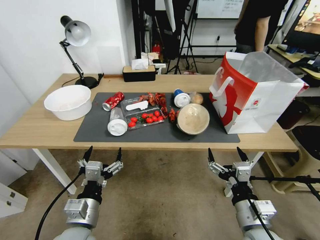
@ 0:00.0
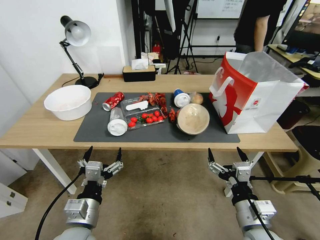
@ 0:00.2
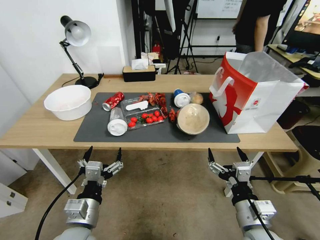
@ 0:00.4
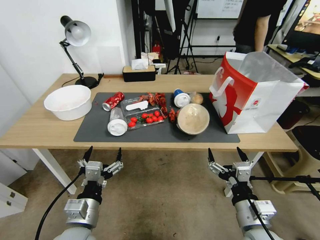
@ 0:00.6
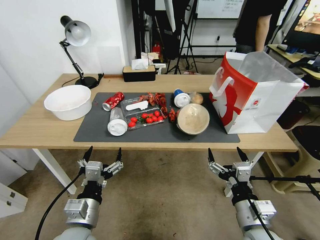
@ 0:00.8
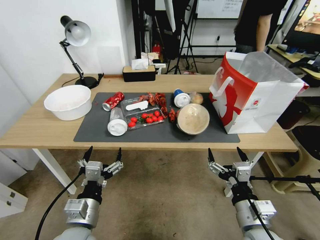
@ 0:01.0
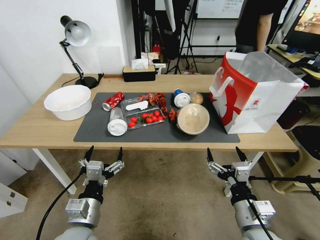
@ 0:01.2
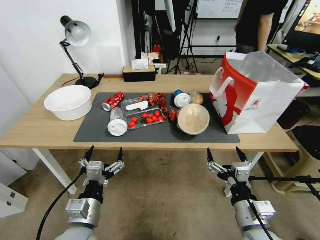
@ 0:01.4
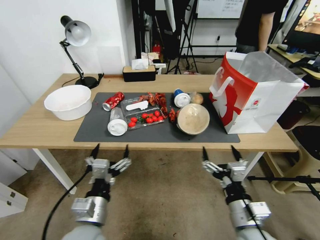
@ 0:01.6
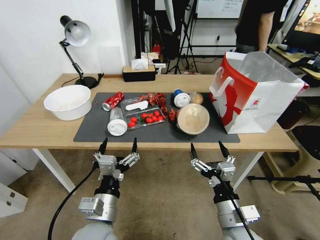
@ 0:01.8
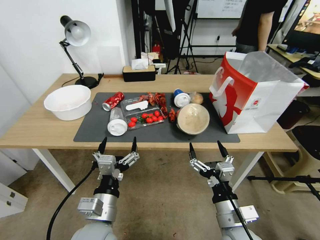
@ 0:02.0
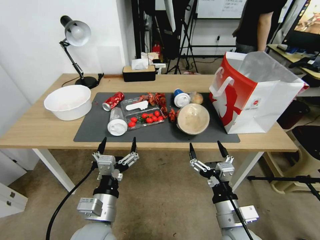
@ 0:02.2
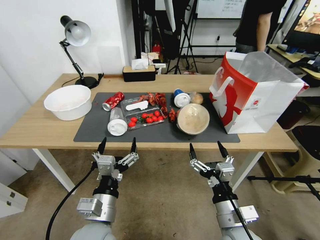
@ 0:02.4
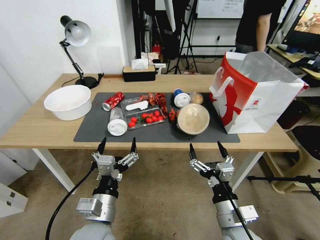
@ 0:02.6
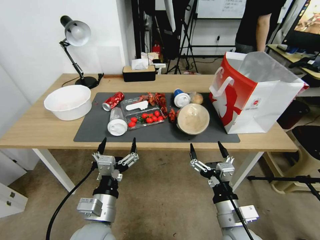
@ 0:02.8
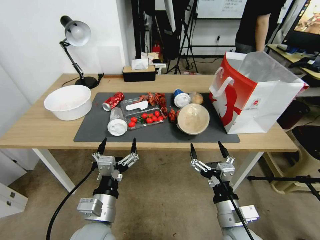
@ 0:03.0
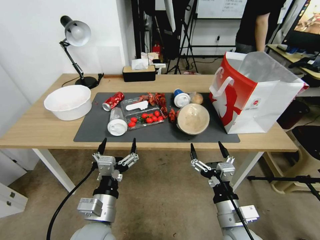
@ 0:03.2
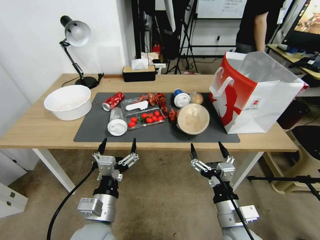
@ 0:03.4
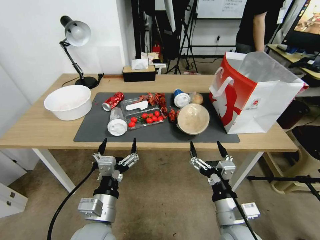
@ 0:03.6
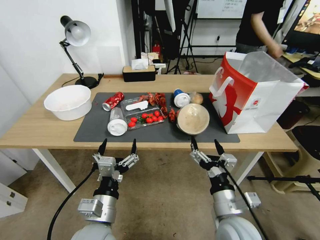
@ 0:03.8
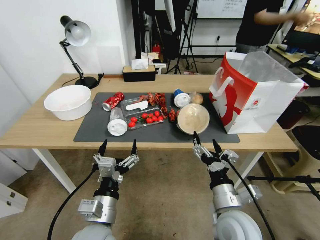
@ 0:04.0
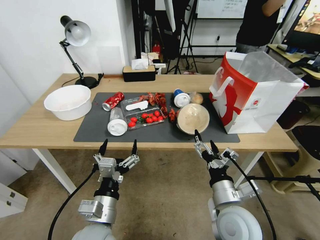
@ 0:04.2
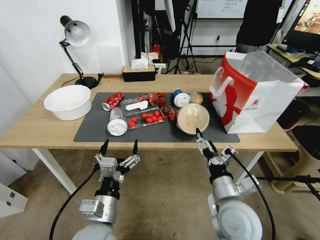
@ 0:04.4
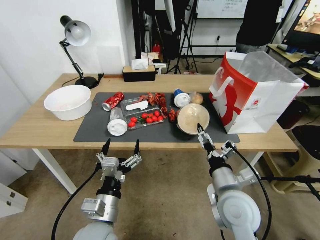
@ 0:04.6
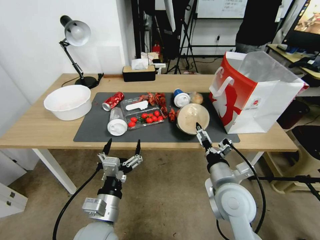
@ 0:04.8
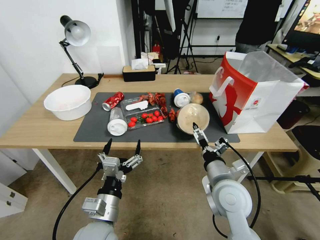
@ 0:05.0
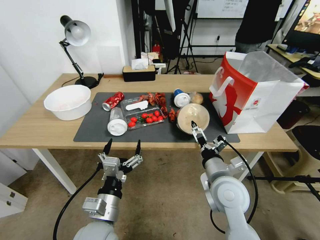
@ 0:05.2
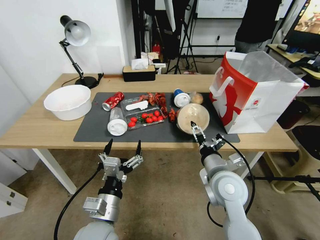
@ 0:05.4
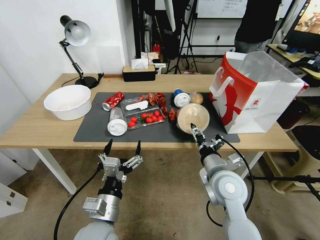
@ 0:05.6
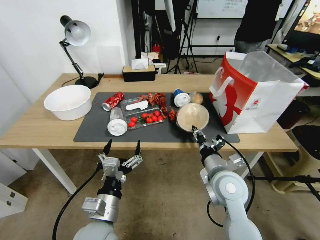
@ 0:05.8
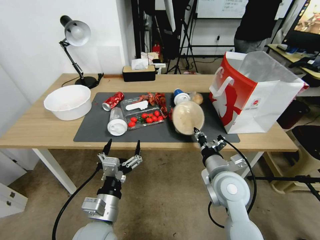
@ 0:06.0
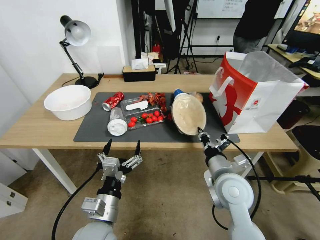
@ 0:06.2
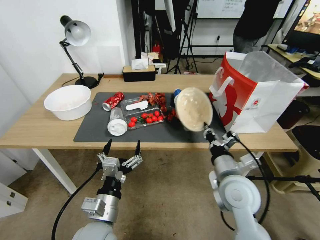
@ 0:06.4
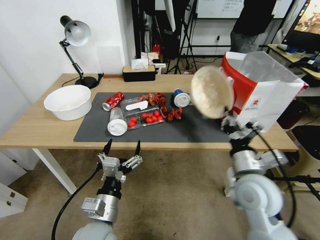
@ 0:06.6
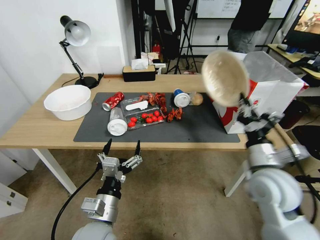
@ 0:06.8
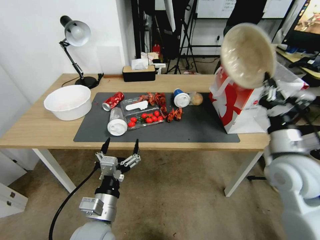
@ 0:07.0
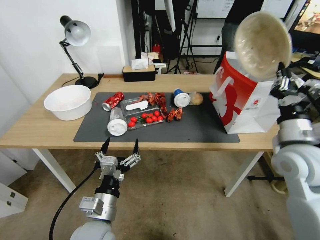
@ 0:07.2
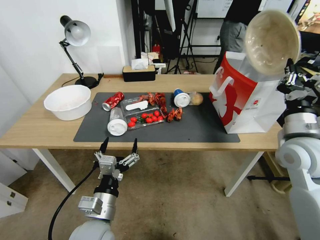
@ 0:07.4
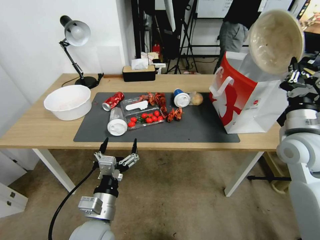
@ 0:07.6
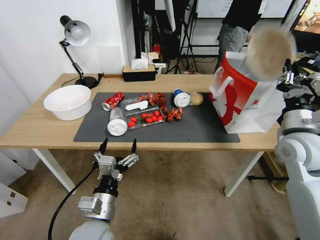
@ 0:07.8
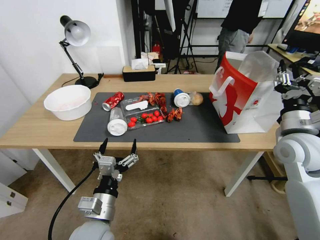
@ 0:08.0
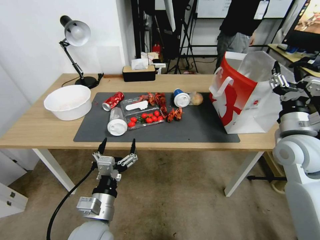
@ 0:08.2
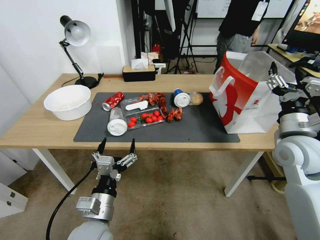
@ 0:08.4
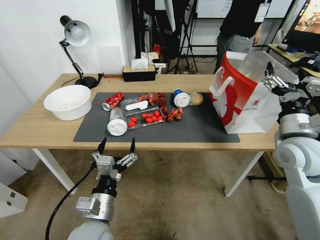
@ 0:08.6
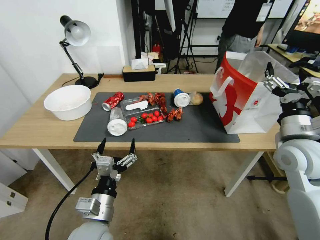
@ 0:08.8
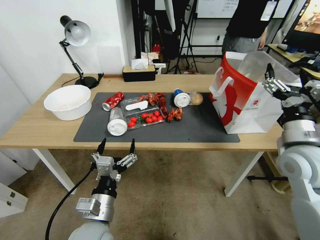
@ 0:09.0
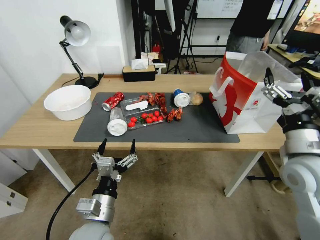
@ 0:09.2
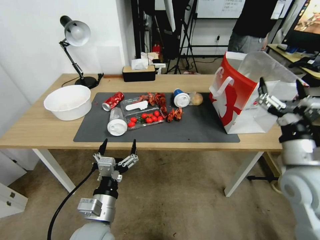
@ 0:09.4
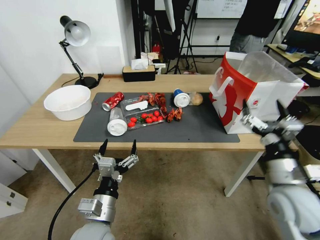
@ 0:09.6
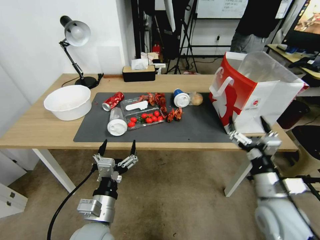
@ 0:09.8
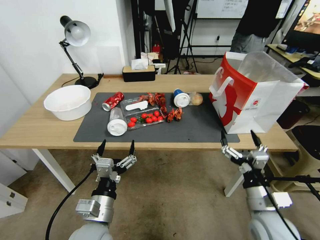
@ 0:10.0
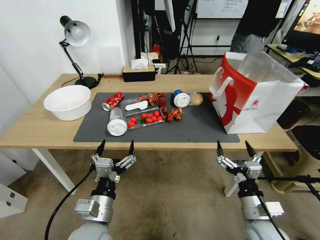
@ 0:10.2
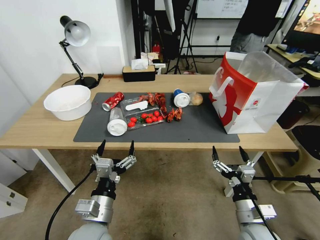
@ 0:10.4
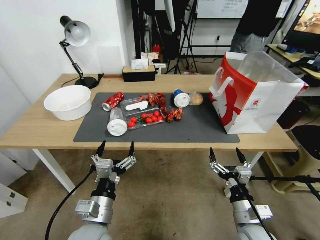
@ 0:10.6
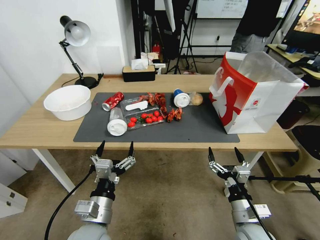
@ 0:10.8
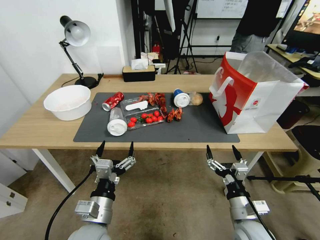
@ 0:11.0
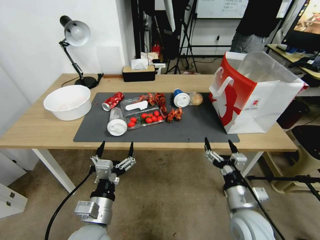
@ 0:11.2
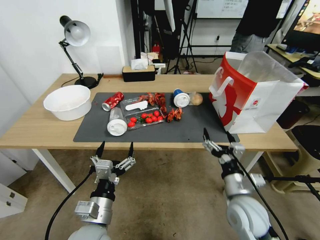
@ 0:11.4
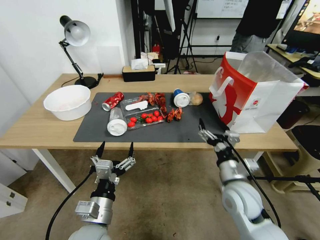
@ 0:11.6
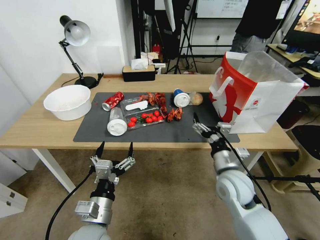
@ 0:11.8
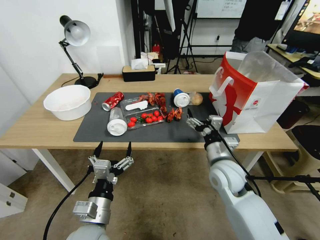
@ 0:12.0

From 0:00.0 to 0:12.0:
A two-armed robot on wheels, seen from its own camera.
From 0:01.6 to 0:03.0: The grippers stay close to where they were, moving slightly.
From 0:04.4 to 0:06.0: The right gripper shifts about 10 cm forward, and closes.
From 0:06.0 to 0:07.6: The right gripper travels to the right and upward by some 20 cm.
From 0:07.6 to 0:09.0: The right gripper opens.
From 0:09.0 to 0:10.4: The right gripper moves downward and backward, approximately 25 cm.
From 0:10.4 to 0:12.0: The right gripper goes roughly 15 cm forward, upward and to the left.

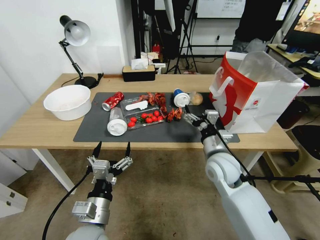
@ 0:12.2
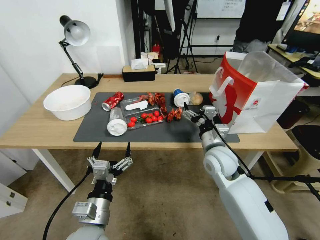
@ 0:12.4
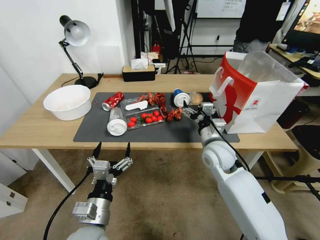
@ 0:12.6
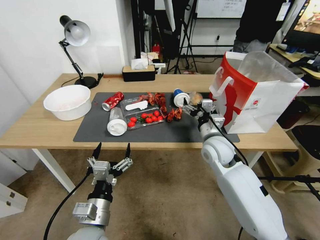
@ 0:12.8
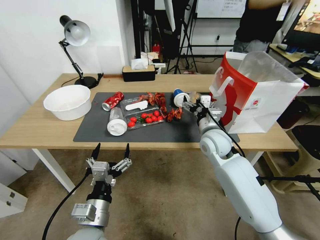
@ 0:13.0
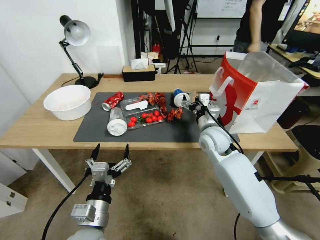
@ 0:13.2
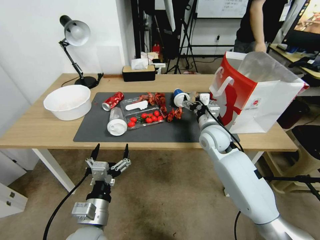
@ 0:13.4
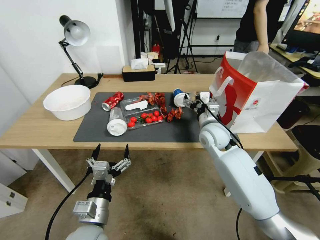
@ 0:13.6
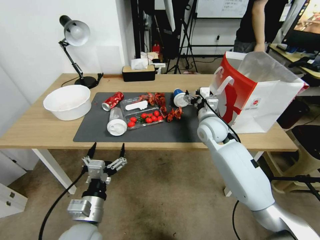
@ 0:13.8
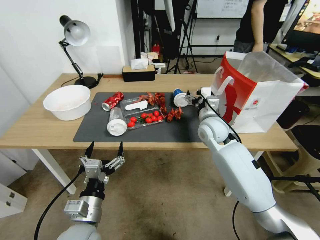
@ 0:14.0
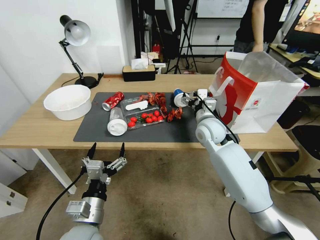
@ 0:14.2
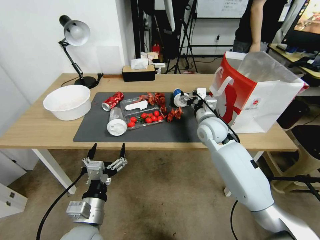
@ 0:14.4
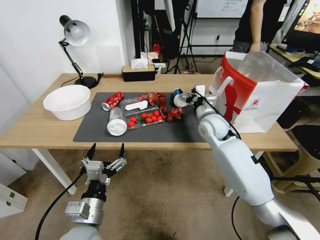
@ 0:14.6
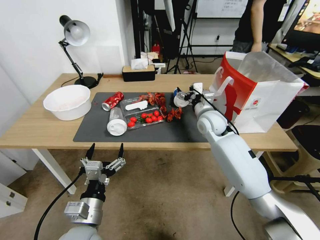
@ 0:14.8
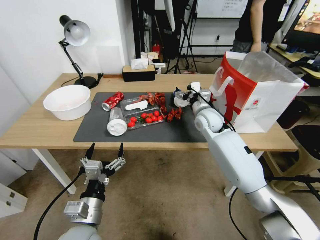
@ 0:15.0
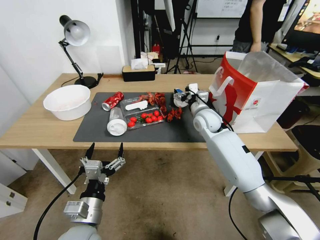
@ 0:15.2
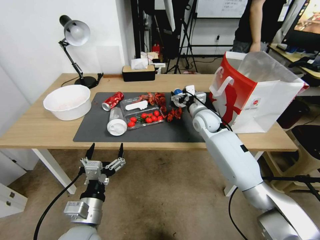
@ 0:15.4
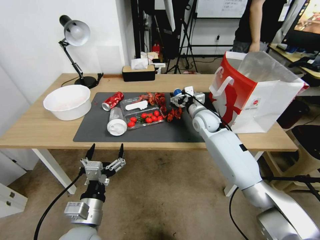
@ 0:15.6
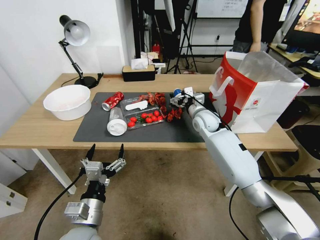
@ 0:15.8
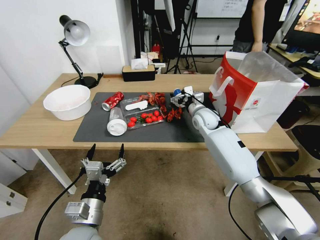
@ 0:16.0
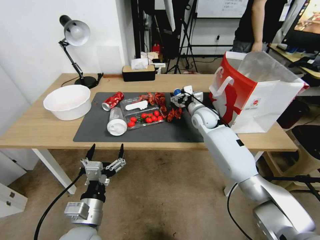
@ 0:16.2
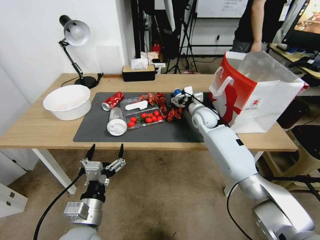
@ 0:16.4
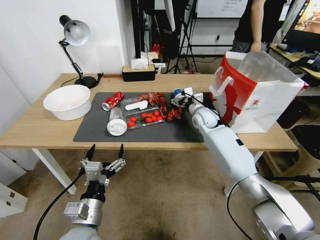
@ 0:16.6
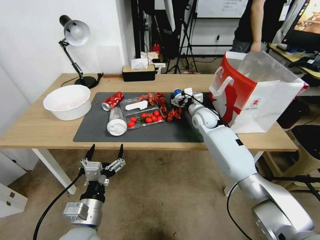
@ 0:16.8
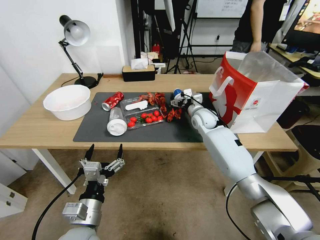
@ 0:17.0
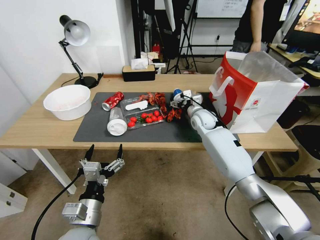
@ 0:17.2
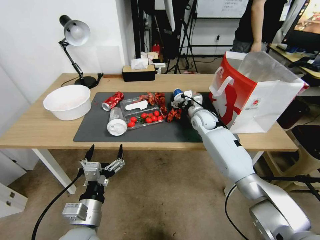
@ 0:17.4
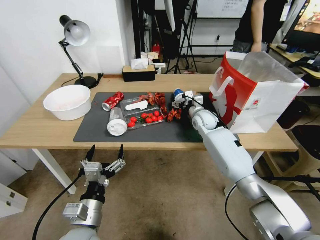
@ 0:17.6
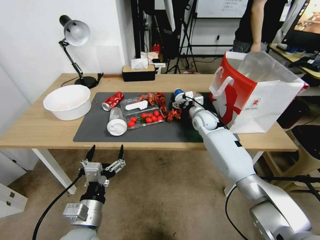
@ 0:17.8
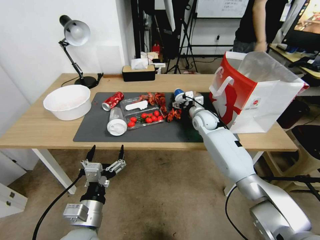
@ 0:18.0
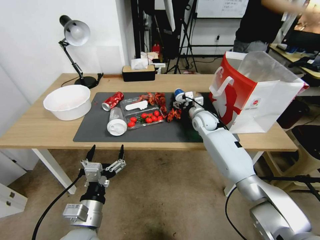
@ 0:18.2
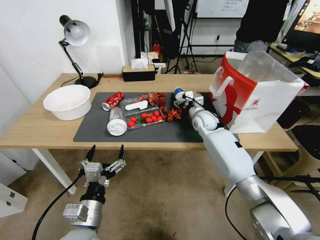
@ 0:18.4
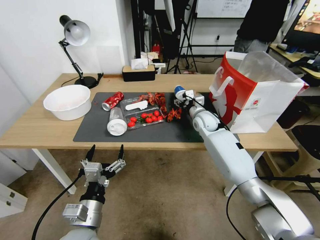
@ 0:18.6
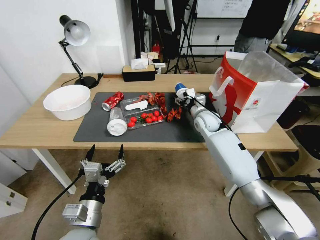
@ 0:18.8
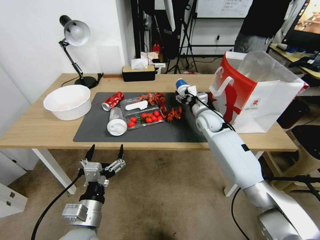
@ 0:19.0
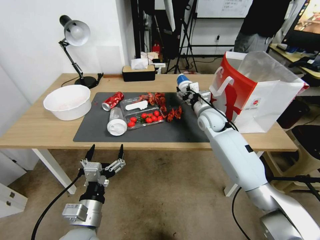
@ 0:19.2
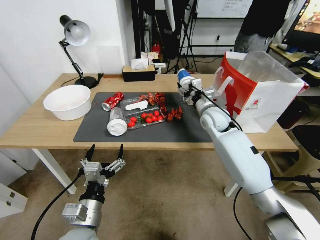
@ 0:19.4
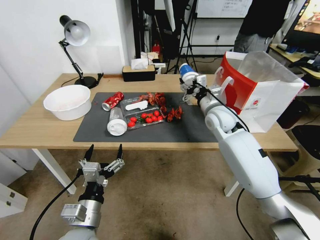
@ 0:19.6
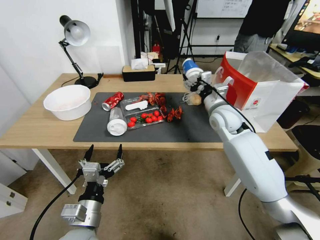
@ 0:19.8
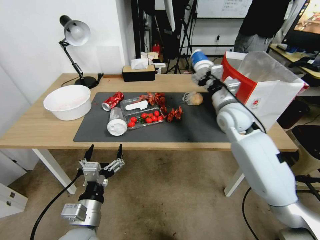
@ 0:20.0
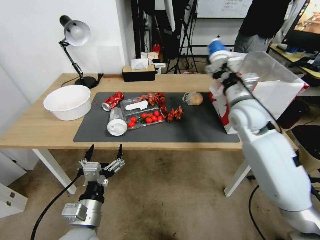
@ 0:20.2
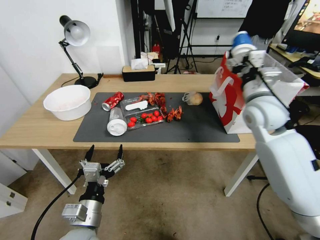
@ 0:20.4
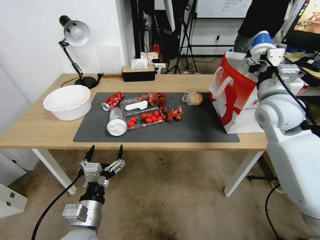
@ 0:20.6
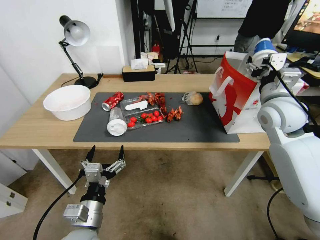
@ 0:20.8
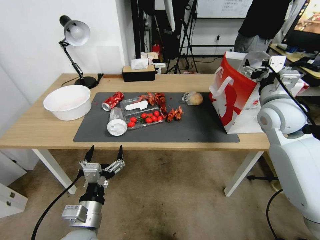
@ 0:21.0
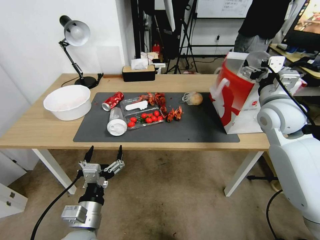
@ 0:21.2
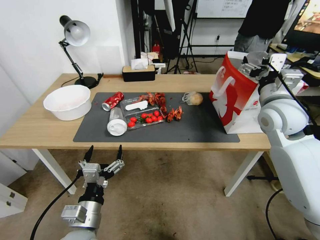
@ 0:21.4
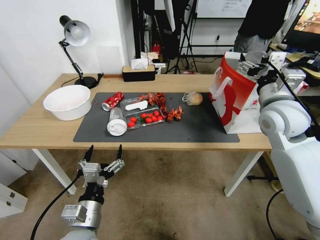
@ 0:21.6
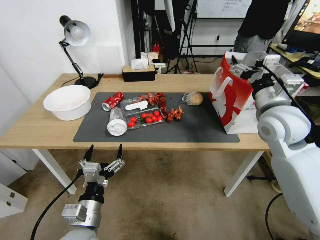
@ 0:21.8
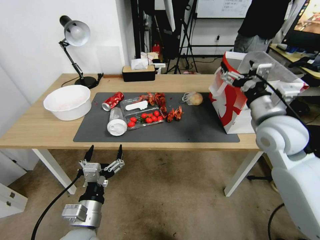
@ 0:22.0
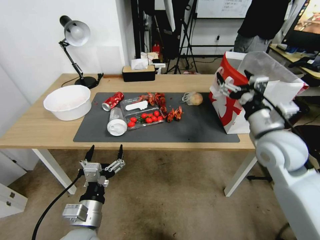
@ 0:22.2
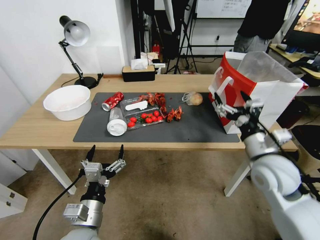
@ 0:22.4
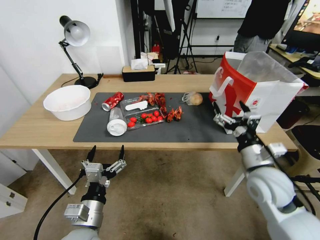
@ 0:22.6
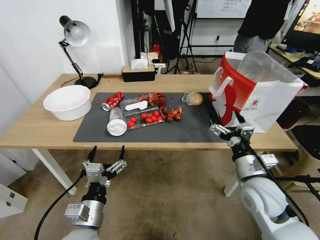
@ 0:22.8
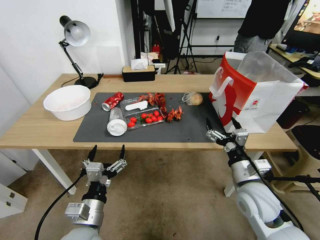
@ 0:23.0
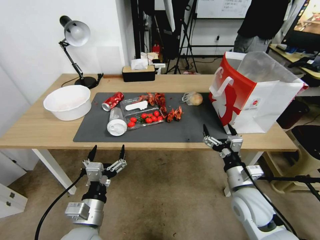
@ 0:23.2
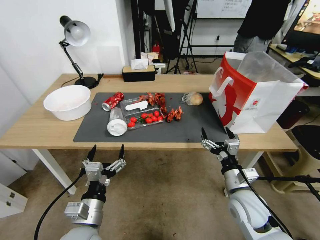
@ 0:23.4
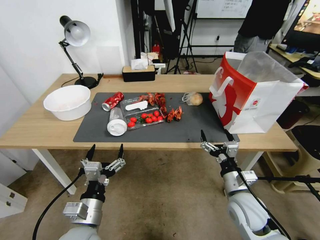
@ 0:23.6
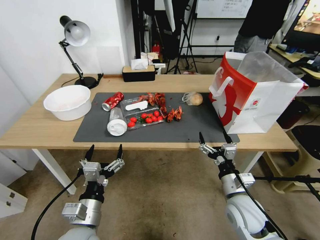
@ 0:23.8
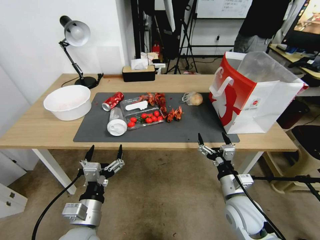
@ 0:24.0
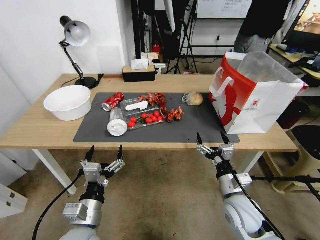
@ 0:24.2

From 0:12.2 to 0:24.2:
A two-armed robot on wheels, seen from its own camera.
From 0:12.2 to 0:13.8: The right gripper heads forward, covering roughly 15 cm.
From 0:13.8 to 0:15.2: The right gripper shifts by some 5 cm.
From 0:15.2 to 0:16.6: There are only small adjustments of the grippers.
From 0:16.6 to 0:18.2: The grippers make only small movements.
From 0:18.2 to 0:19.8: The right gripper moves upward and backward, about 15 cm.
From 0:19.8 to 0:21.2: The right gripper shifts about 15 cm to the right, upward and backward.
From 0:21.2 to 0:22.6: The right gripper is displaced downward and backward by about 20 cm.
From 0:22.6 to 0:24.2: The right gripper shifts about 10 cm downward.
